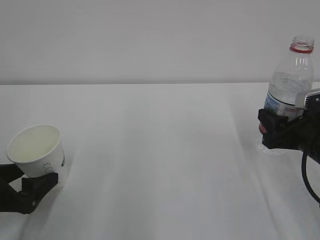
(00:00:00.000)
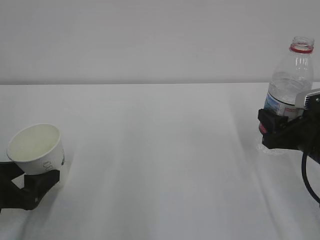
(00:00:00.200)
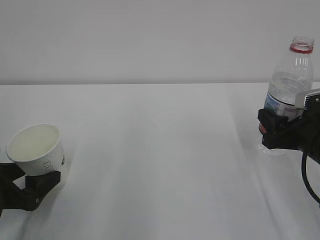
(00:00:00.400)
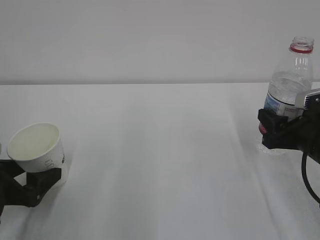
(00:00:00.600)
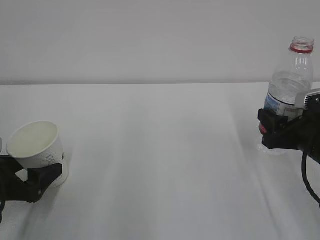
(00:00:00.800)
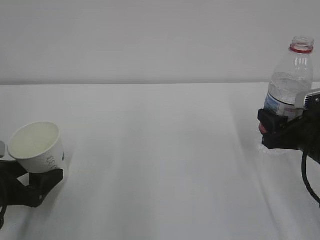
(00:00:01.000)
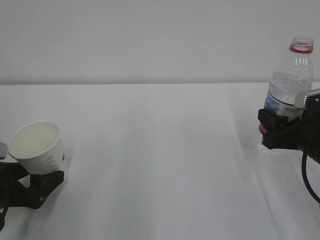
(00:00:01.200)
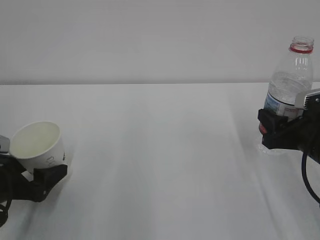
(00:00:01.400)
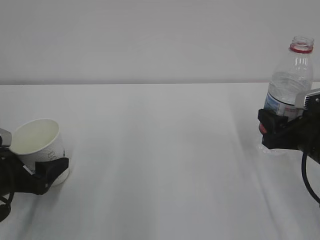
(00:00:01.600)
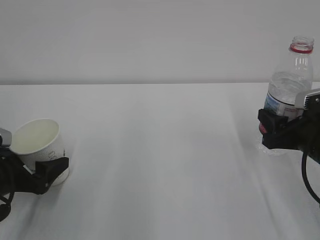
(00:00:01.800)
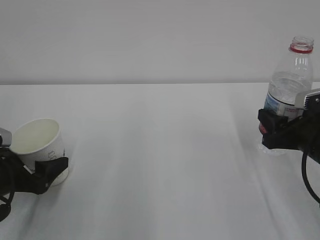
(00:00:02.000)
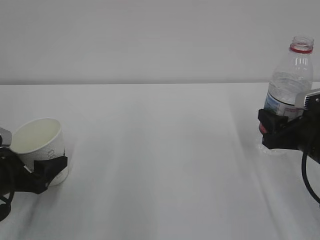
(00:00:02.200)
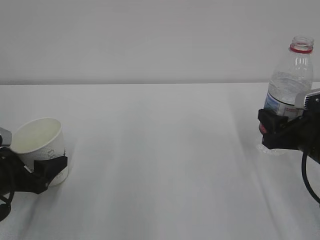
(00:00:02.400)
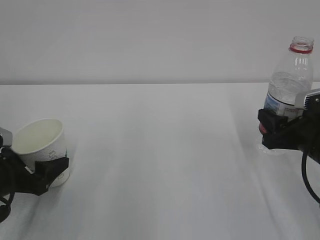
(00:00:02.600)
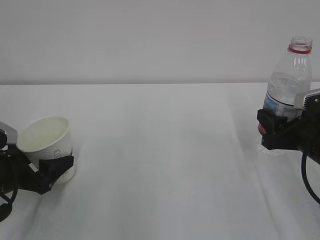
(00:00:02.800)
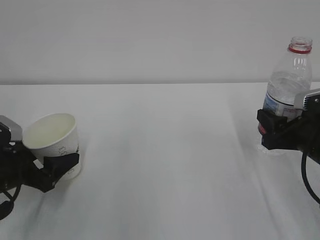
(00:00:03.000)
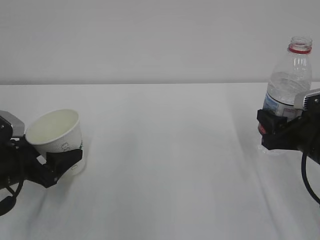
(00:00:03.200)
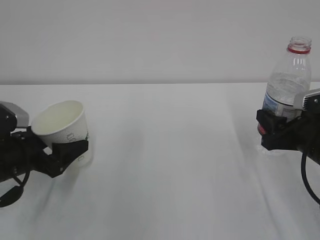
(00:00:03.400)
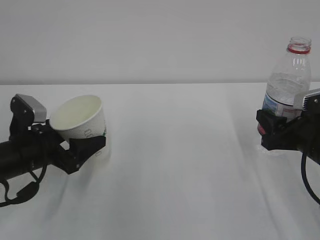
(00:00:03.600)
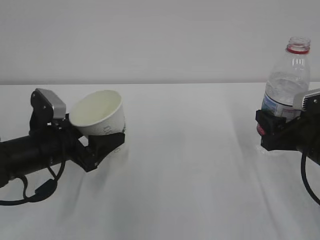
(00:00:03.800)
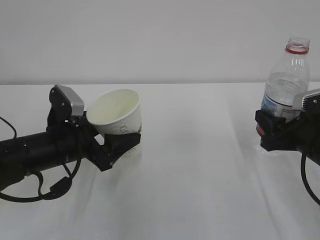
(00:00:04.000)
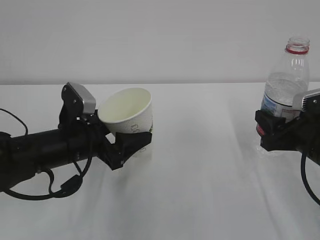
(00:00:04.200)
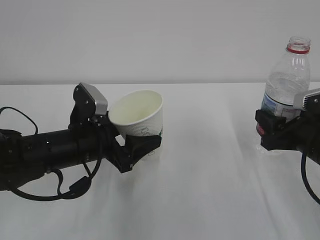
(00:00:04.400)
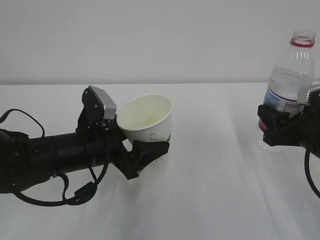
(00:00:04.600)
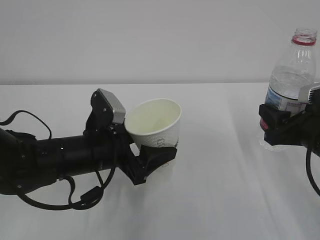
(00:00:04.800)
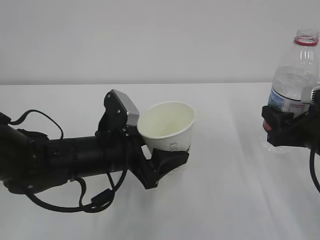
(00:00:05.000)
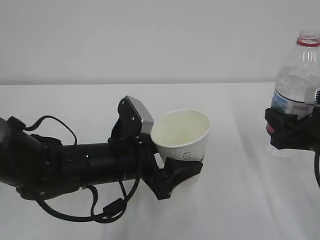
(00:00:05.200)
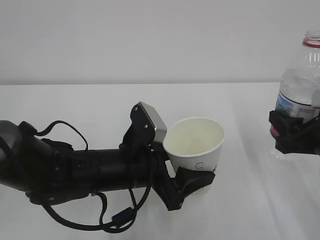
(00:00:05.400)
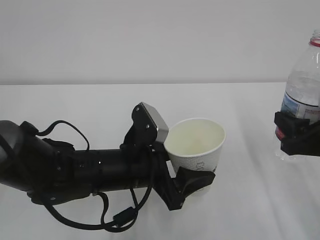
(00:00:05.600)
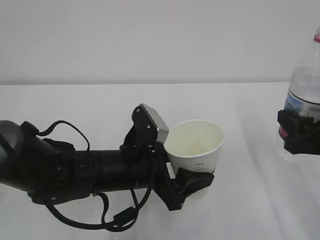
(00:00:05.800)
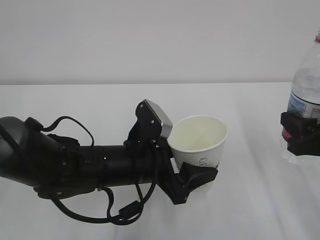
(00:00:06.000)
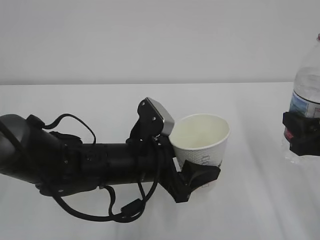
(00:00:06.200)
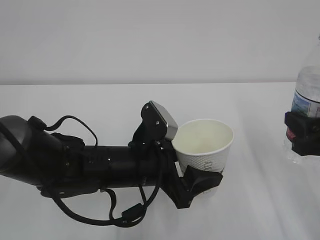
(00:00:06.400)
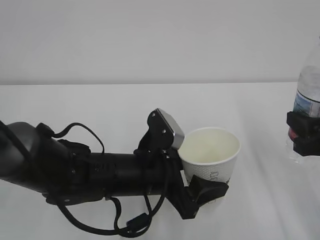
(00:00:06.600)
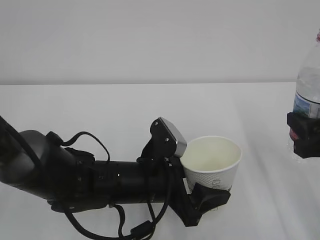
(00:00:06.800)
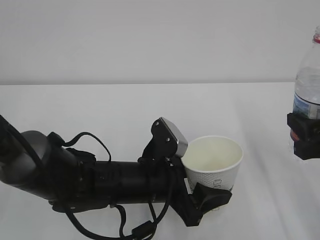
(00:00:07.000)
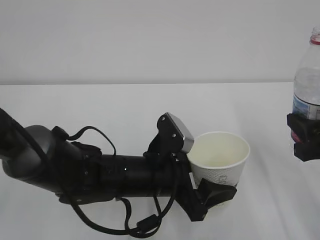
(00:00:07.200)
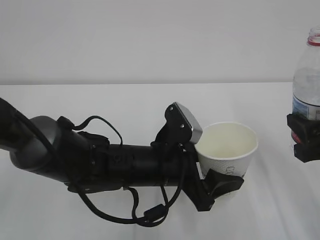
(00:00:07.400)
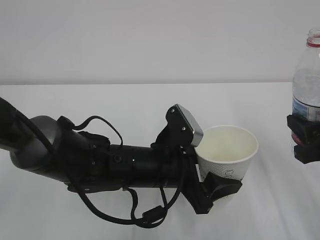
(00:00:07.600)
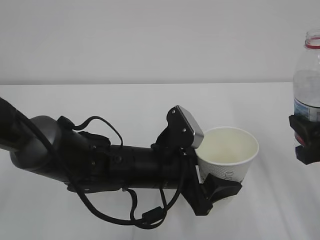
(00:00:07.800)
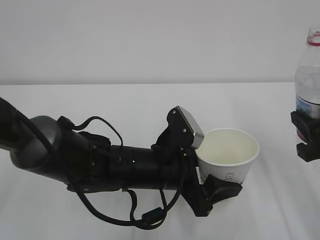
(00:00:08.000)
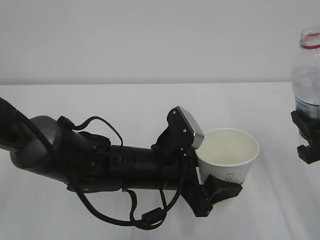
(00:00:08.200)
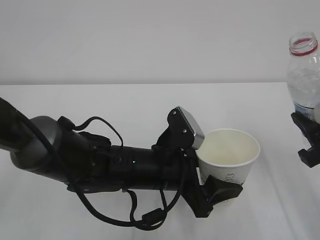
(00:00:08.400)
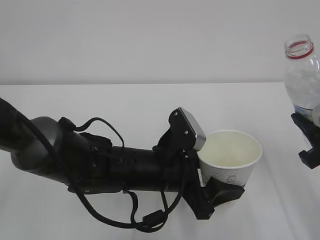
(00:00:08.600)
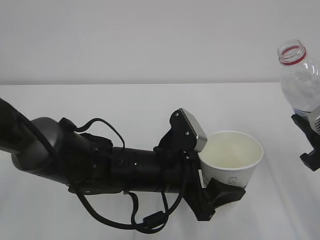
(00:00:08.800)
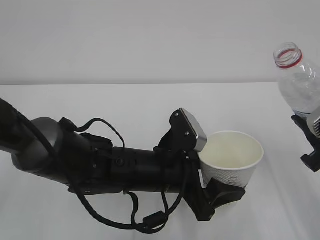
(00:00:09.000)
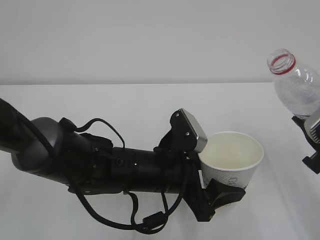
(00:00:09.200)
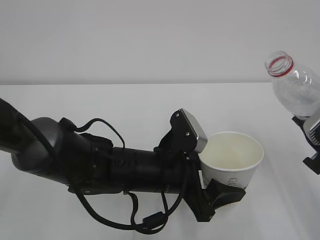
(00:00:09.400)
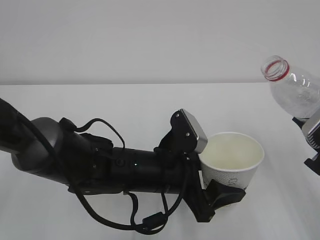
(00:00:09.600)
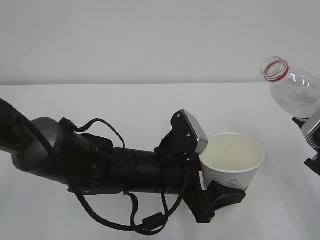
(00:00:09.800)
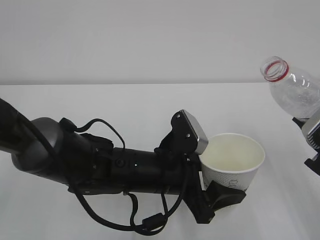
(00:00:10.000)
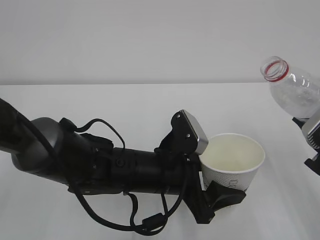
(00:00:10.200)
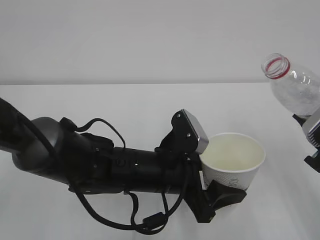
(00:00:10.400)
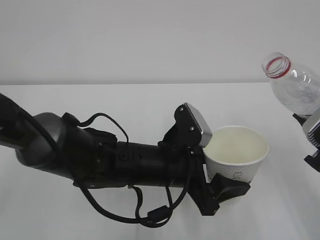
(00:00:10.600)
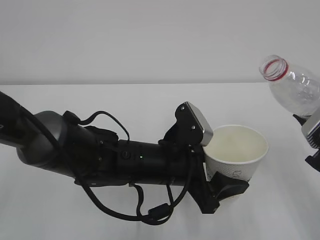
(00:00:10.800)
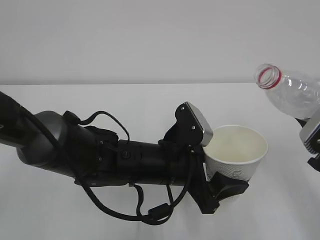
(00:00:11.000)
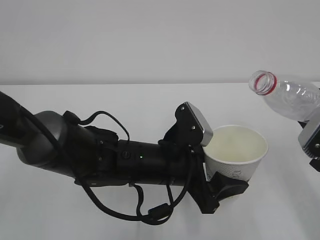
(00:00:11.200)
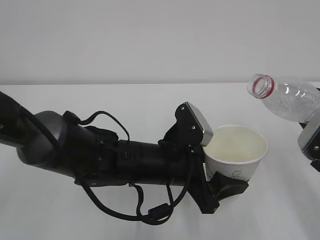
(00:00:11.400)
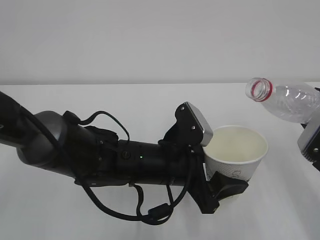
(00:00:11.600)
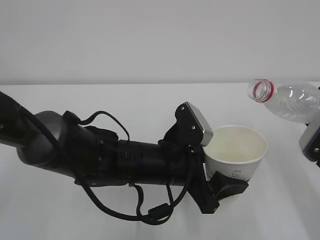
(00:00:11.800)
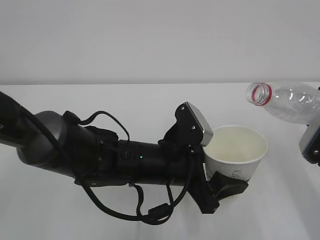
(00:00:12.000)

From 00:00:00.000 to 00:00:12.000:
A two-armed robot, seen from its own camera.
From 00:00:00.000 to 00:00:01.600: The grippers move only a little.
From 00:00:01.600 to 00:00:03.000: The left gripper closes.
From 00:00:03.000 to 00:00:04.400: The left gripper goes roughly 15 cm to the right.
From 00:00:04.400 to 00:00:06.000: The left gripper is displaced to the right by approximately 10 cm. Meanwhile the right gripper ends up approximately 5 cm from where it was.
From 00:00:06.000 to 00:00:07.600: The grippers move only a little.
From 00:00:09.000 to 00:00:10.400: The grippers move only a little.

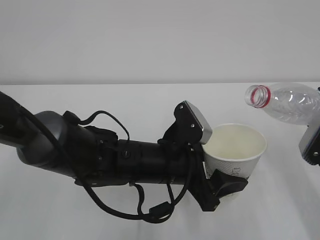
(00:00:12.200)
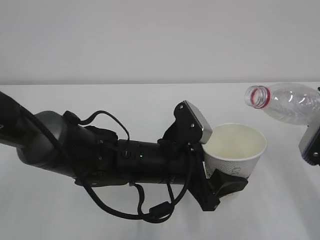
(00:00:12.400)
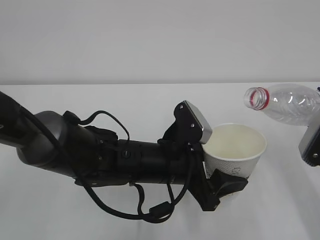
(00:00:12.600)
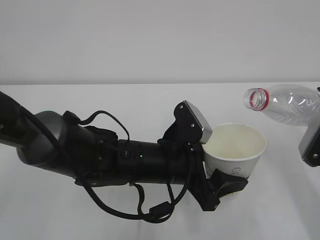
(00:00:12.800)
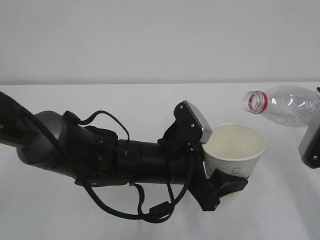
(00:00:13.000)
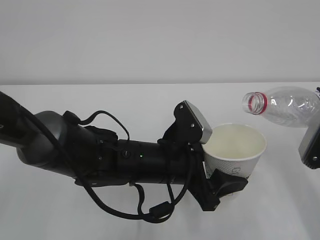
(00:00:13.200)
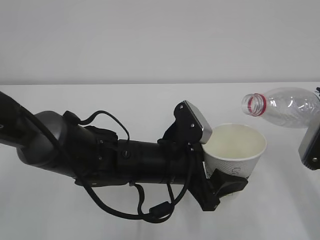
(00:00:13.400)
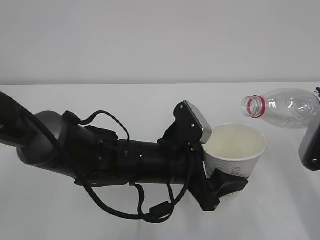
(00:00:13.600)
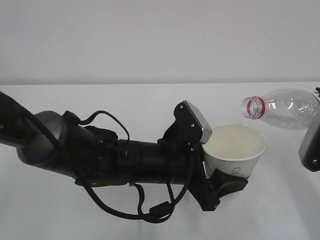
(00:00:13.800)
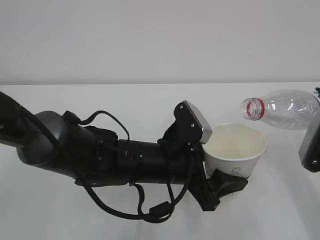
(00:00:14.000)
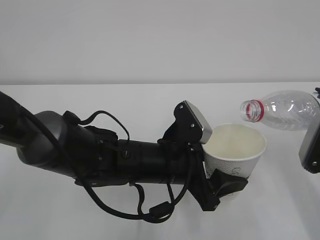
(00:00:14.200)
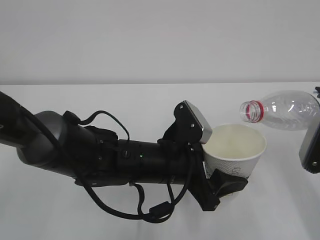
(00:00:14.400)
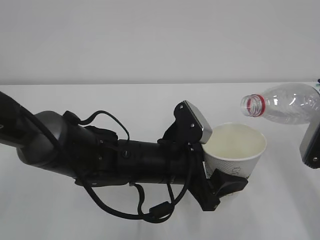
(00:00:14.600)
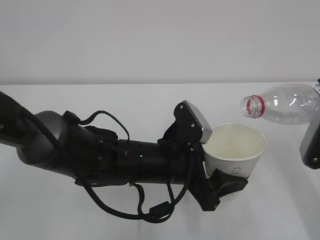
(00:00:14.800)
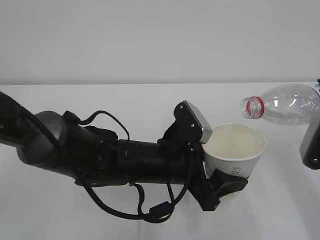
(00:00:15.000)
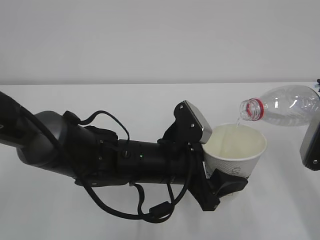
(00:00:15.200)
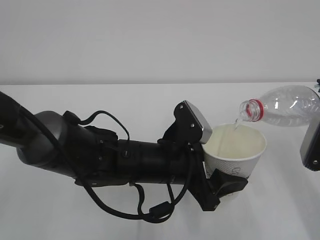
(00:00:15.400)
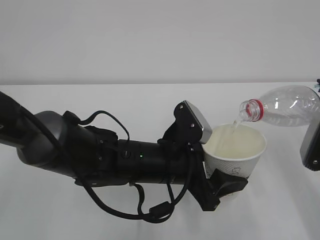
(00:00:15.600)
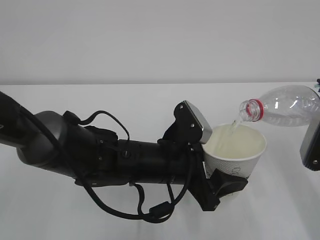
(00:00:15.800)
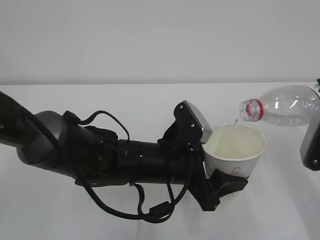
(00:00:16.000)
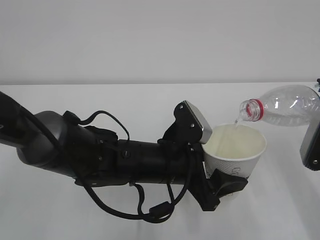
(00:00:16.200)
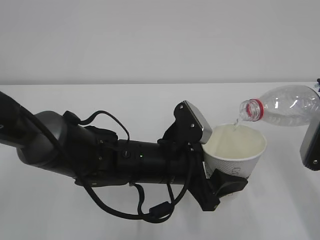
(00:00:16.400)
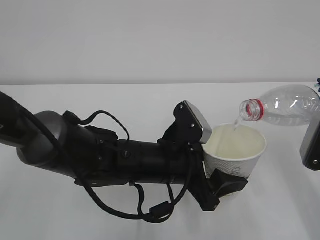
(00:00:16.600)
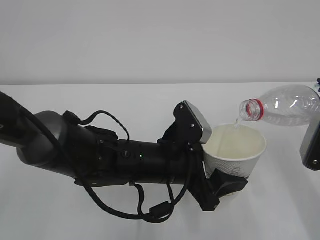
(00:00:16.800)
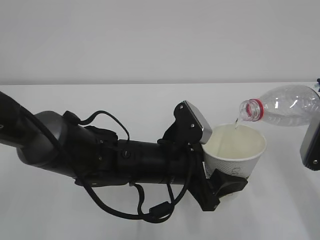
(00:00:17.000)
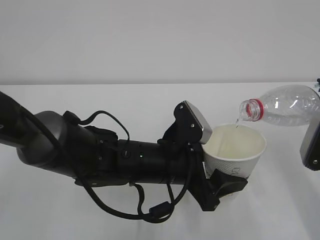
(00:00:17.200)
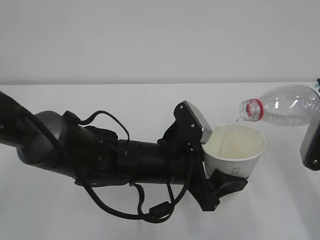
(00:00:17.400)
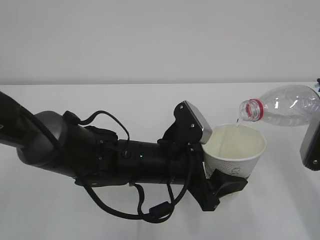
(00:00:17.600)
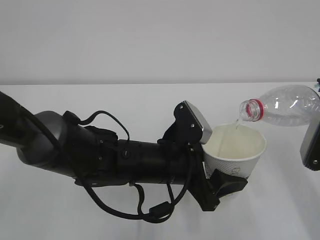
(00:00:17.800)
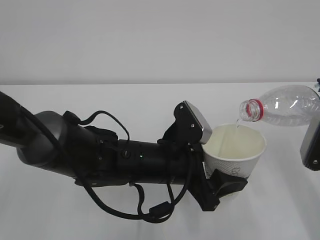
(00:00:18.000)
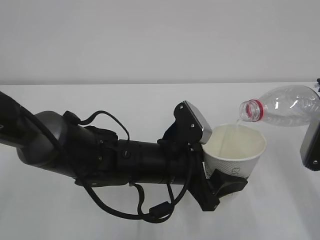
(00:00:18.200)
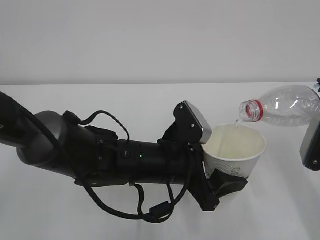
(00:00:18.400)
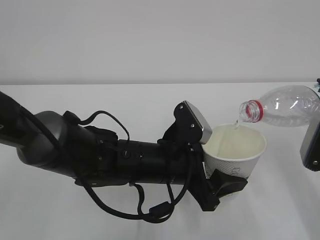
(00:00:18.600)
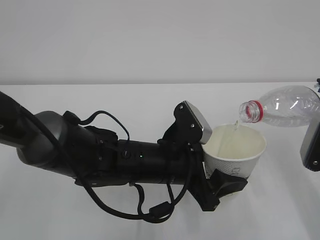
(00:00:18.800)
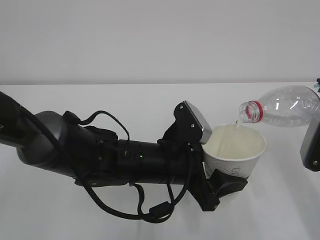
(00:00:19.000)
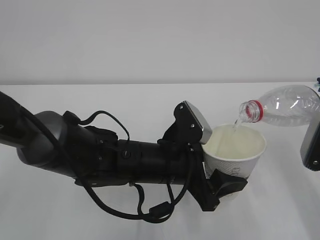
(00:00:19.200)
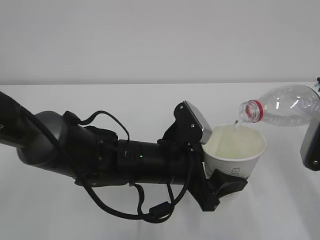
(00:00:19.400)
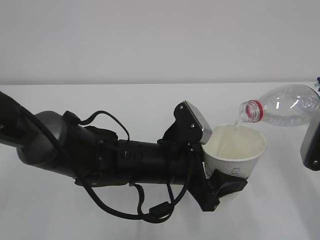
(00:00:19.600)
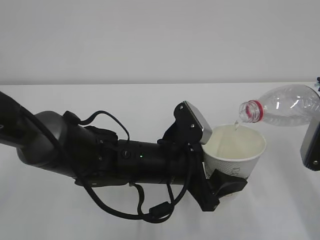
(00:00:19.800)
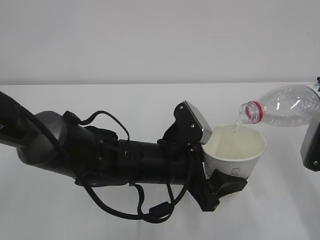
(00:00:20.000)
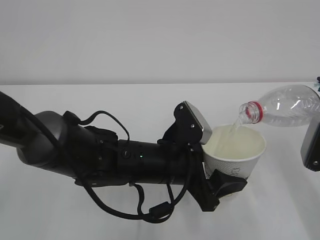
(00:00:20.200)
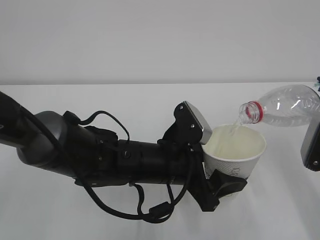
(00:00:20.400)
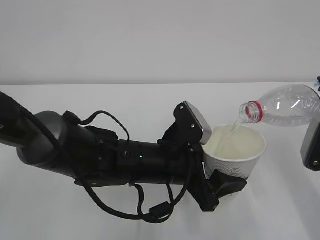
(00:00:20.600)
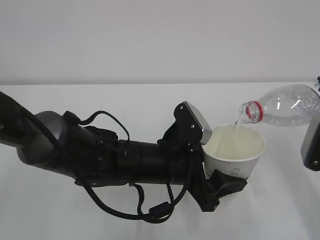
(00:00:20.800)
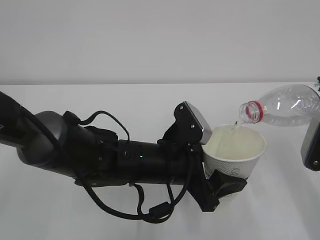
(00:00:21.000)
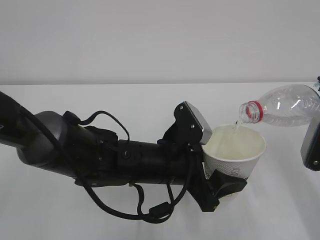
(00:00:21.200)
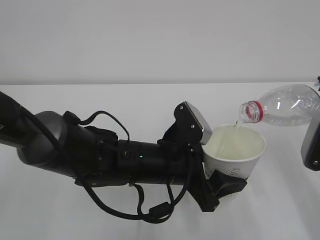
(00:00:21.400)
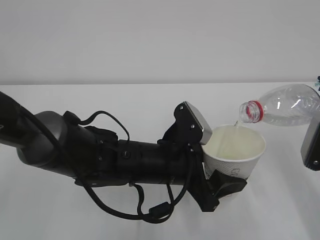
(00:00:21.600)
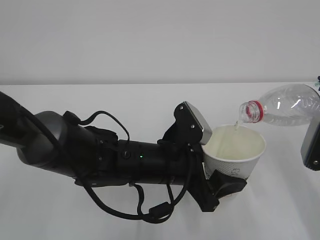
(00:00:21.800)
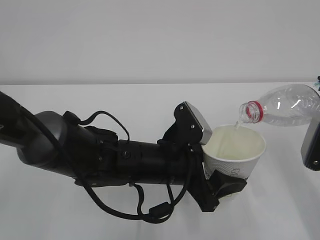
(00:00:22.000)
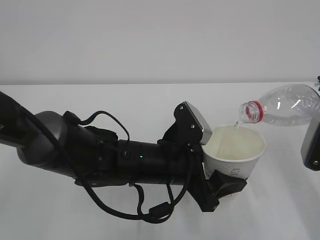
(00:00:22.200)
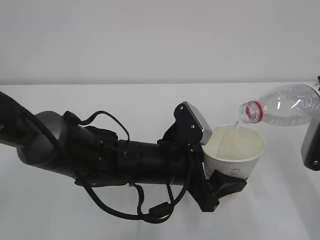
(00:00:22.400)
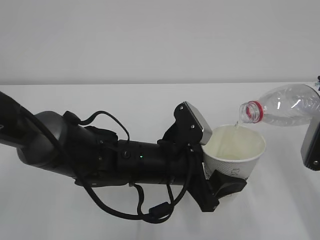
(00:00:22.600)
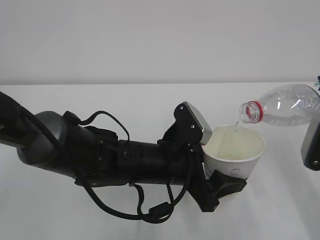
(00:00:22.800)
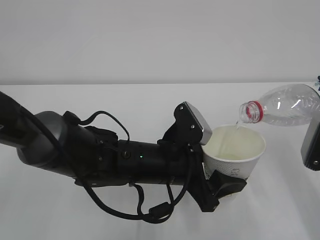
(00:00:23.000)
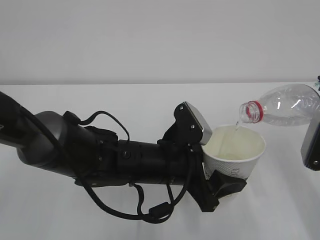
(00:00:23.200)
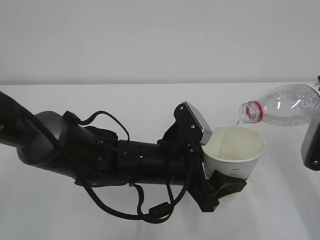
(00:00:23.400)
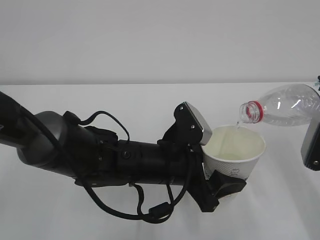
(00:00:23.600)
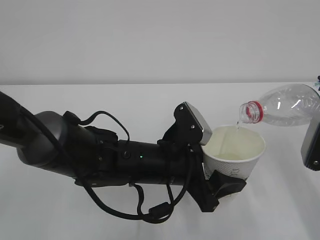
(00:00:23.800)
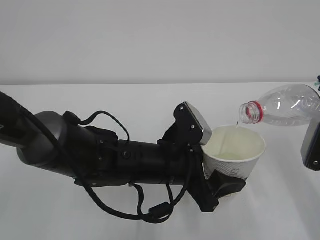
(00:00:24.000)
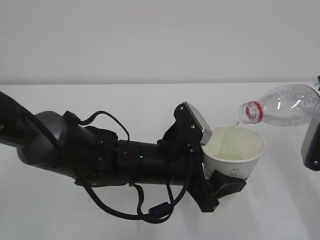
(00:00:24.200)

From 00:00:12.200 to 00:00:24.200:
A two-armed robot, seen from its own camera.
From 00:00:12.200 to 00:00:13.800: The grippers move only a little.
From 00:00:15.200 to 00:00:24.200: Both grippers stay put.
